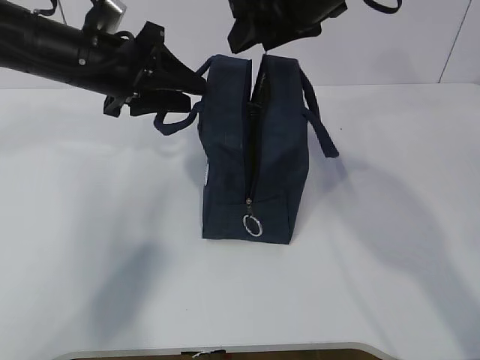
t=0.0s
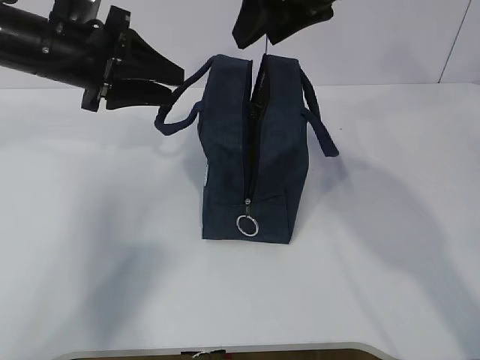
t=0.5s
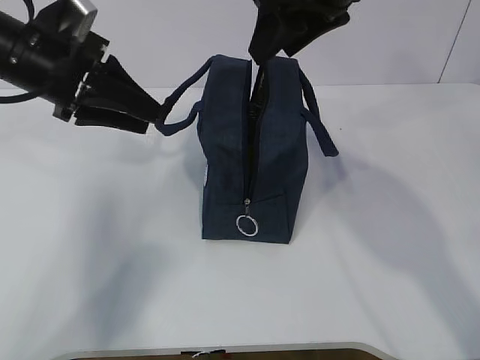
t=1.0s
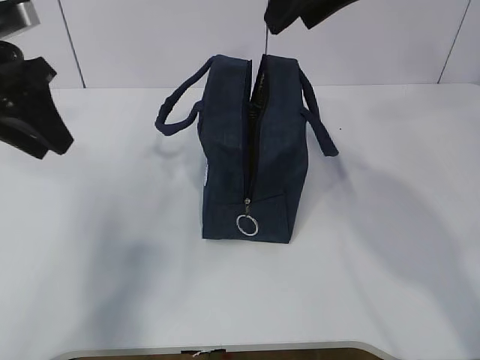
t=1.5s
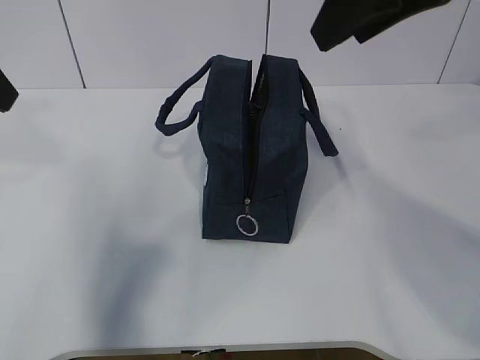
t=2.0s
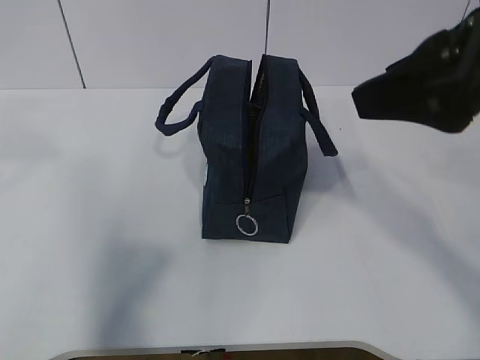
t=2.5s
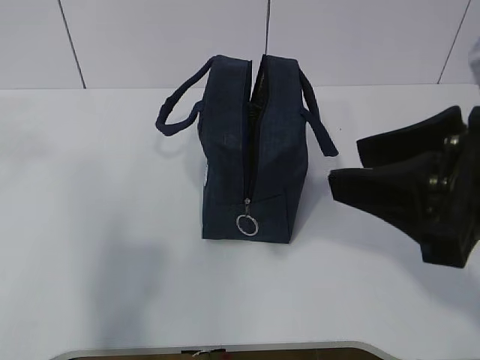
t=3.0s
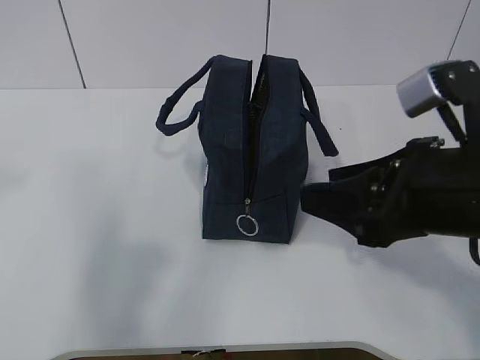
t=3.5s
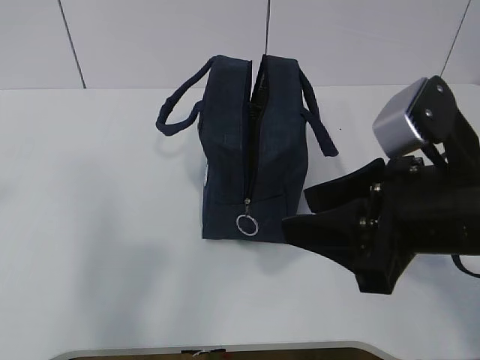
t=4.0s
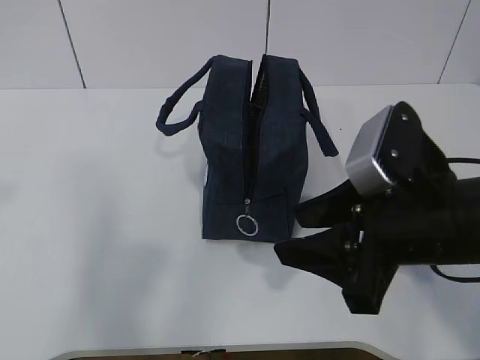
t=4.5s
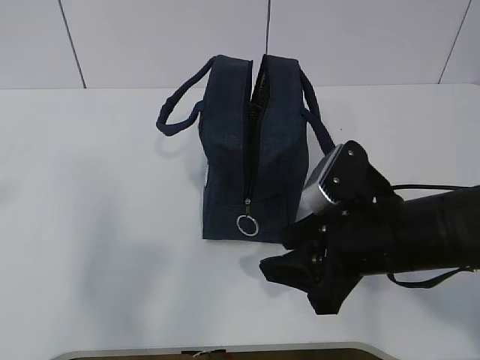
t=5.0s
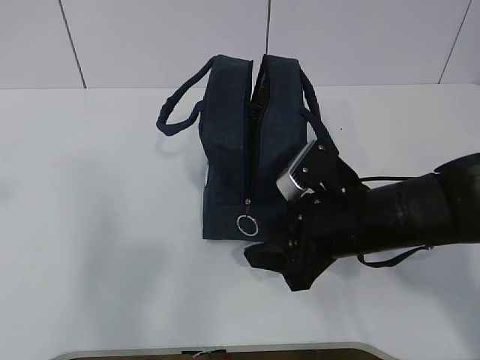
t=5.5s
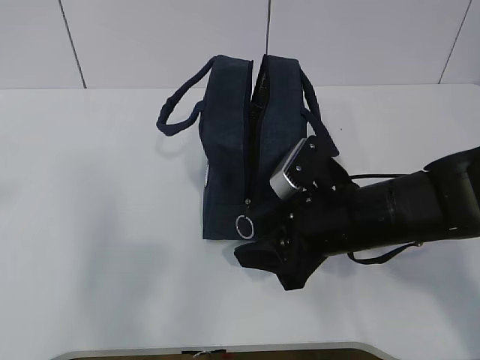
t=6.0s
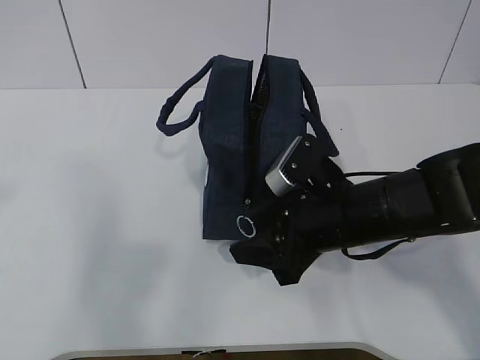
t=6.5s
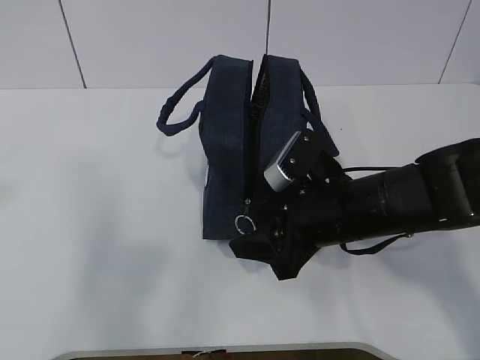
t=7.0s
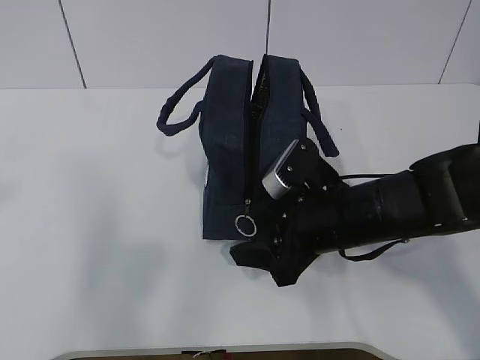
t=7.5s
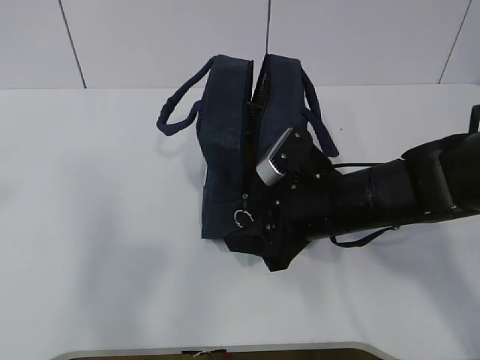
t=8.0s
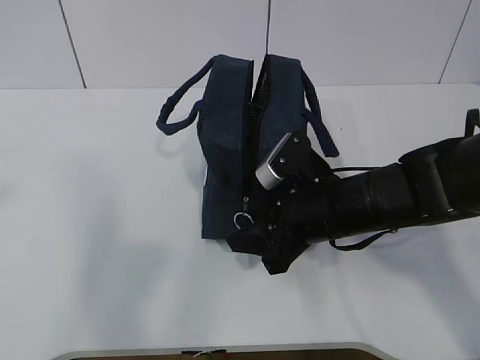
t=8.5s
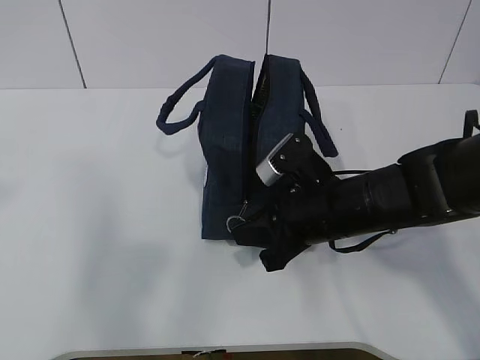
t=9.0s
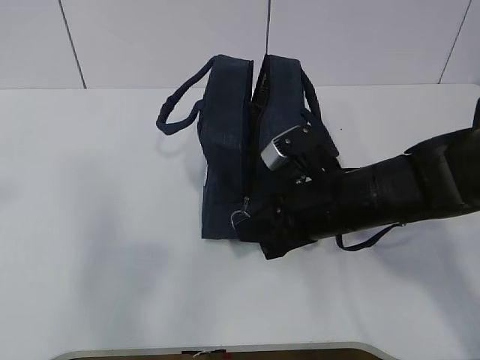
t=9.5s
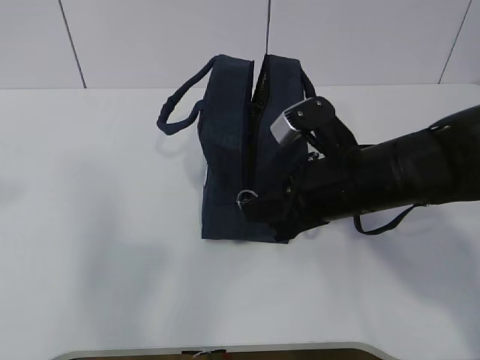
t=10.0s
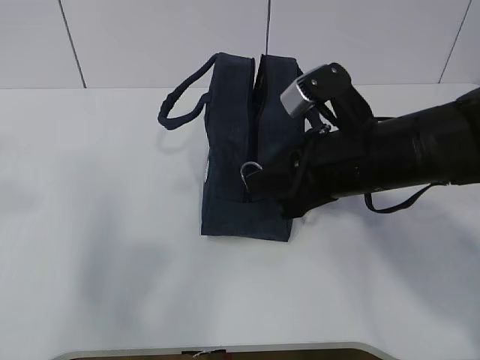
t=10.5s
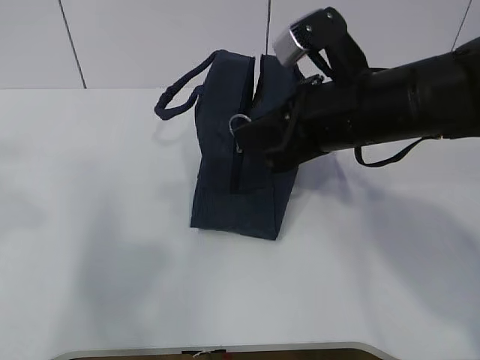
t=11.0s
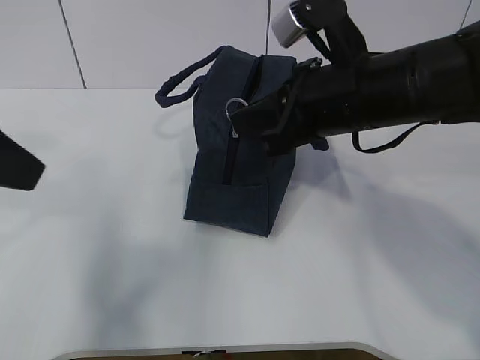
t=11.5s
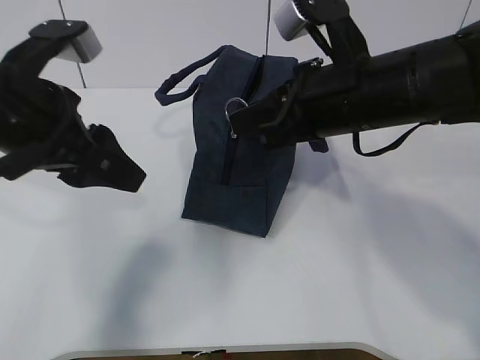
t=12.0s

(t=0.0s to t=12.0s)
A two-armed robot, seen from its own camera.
t=0.0s - t=2.0s: The right gripper moves backward, upward and to the right, approximately 15 cm; the left gripper moves upward, backward and to the left, about 20 cm.
t=2.0s - t=4.0s: The right gripper heads downward and backward, covering some 20 cm. The left gripper moves backward, roughly 20 cm.
t=4.0s - t=6.0s: The right gripper moves downward and forward, roughly 10 cm.
t=6.0s - t=8.0s: The grippers move only a little.
t=8.0s - t=10.0s: The right gripper closes its fingers.
t=10.0s - t=12.0s: The right gripper heads upward, covering roughly 10 cm; the left gripper goes approximately 25 cm forward, downward and to the right.

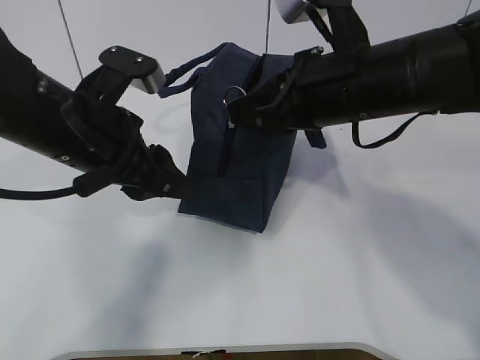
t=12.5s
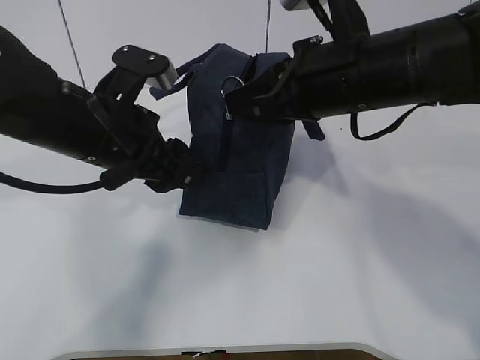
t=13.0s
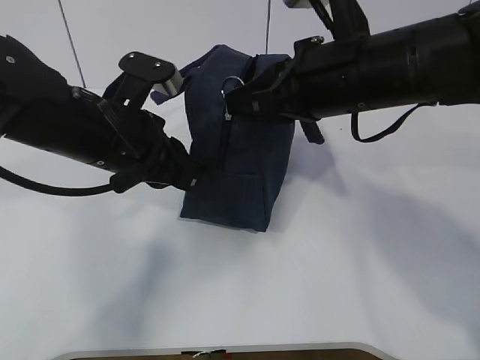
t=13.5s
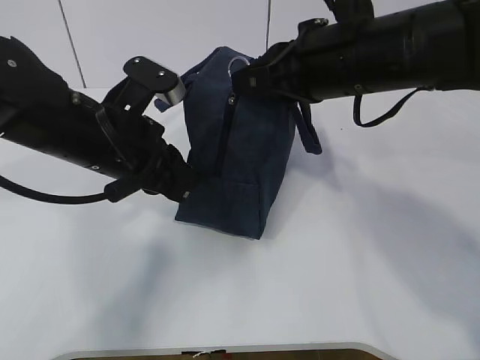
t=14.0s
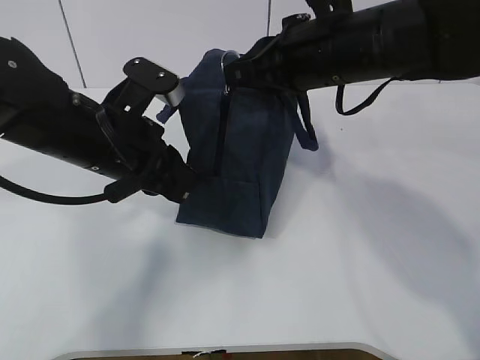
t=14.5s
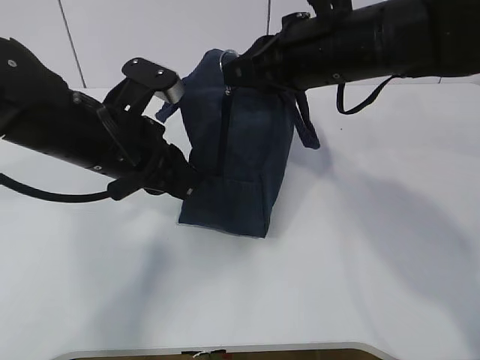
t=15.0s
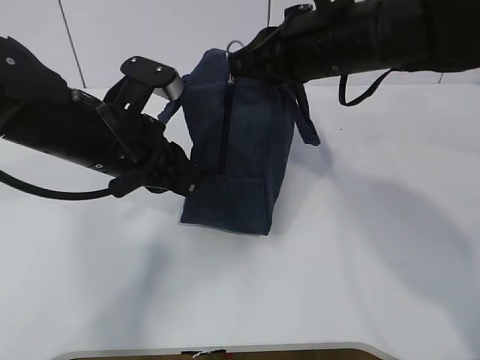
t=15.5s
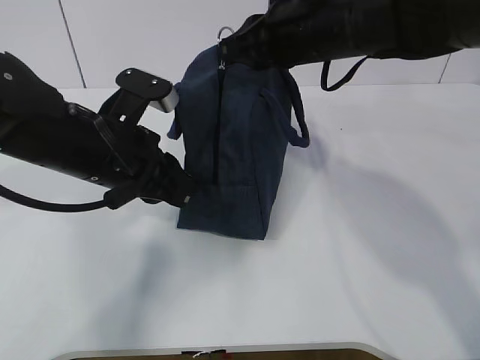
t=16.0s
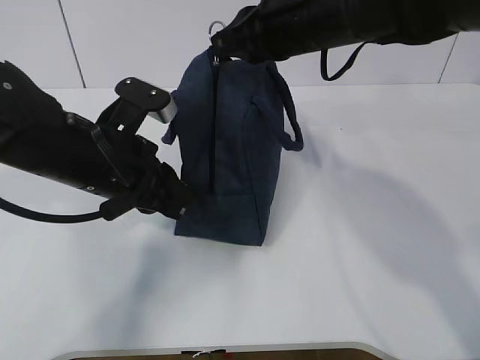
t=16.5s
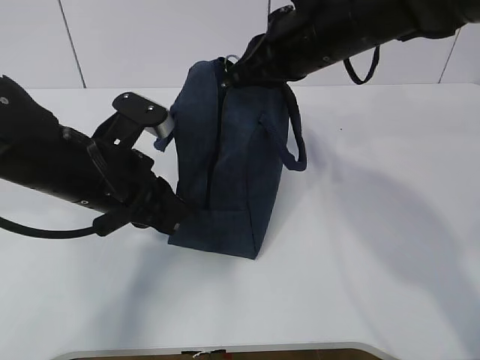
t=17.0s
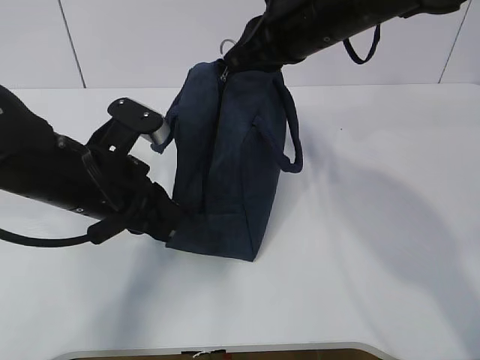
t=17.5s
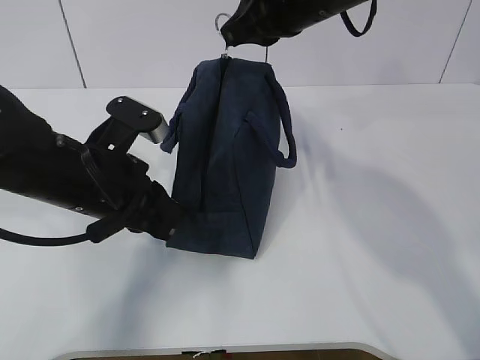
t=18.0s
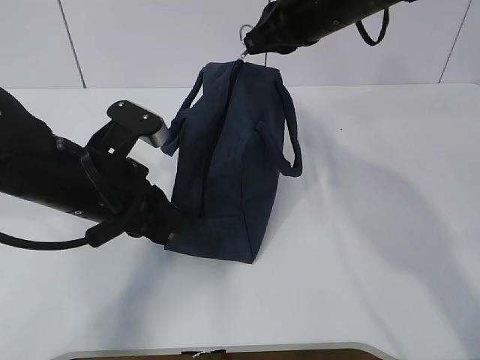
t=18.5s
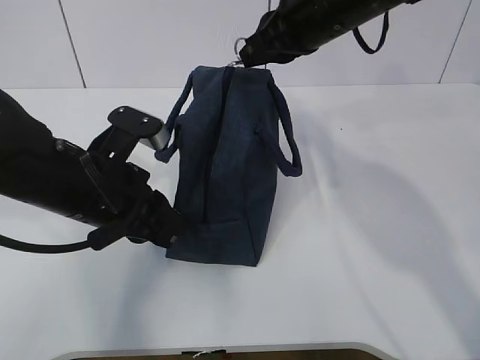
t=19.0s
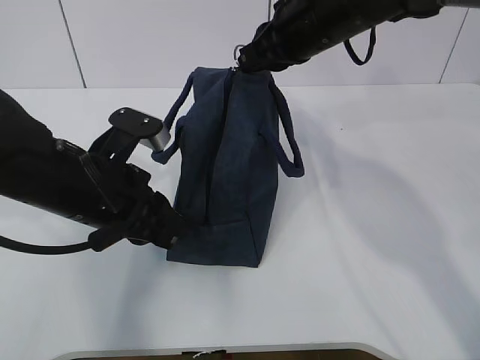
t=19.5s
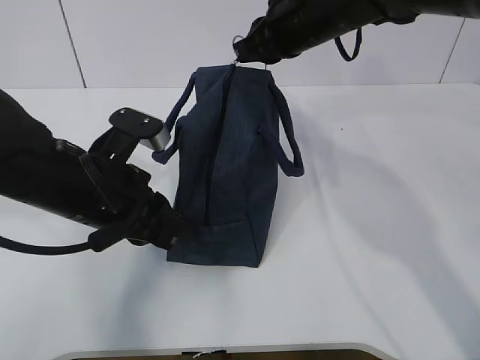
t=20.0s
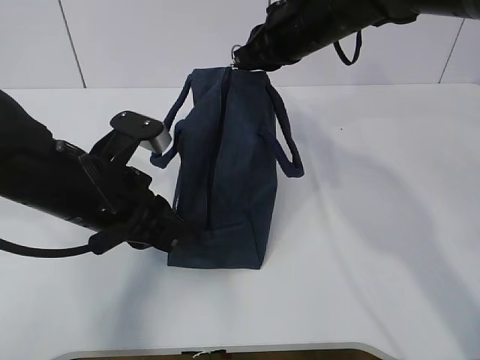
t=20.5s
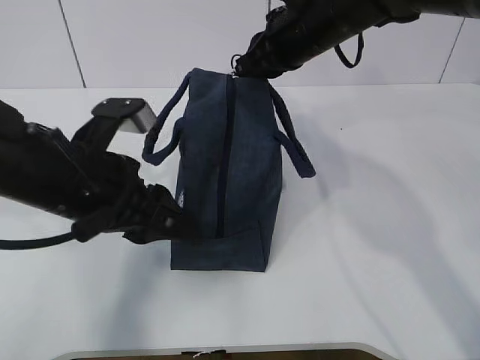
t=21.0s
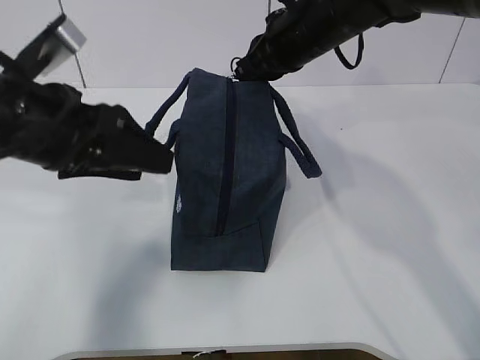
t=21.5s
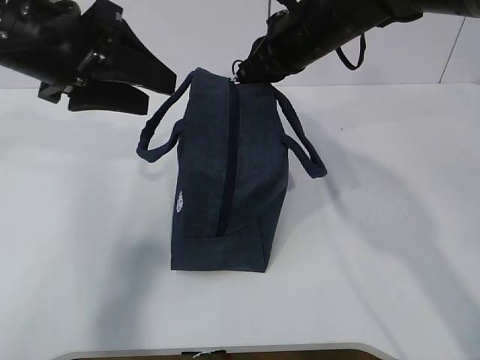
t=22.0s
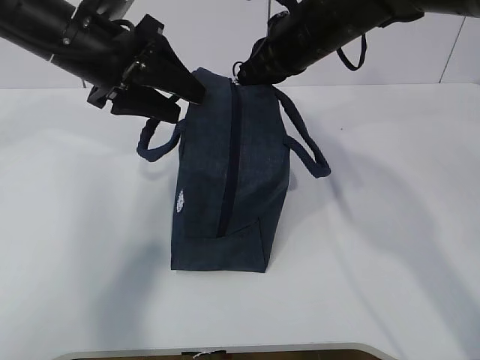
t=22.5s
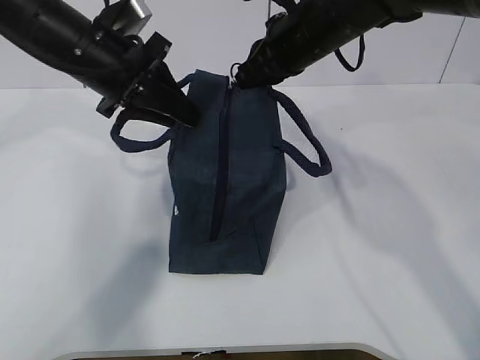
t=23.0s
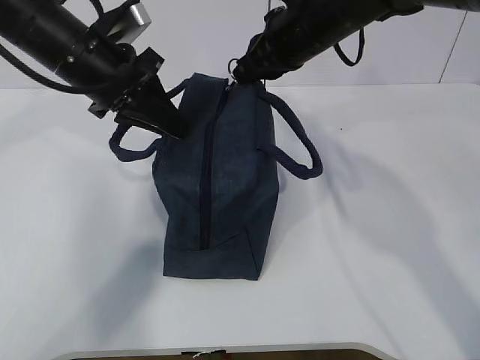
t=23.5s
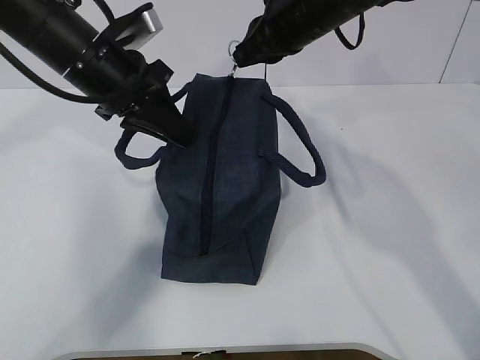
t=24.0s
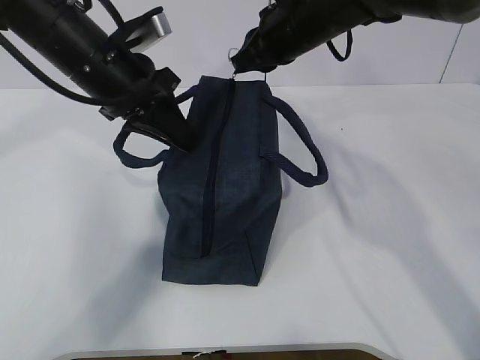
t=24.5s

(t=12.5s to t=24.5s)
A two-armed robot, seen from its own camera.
t=12.5s - t=14.5s: The left gripper closes its fingers.
t=14.5s - t=16.5s: The grippers stay close to where they were, moving slightly.
t=16.5s - t=18.5s: There are only small adjustments of the grippers.
t=18.5s - t=20.5s: There are only small adjustments of the grippers.
t=20.5s - t=22.5s: The left gripper shifts approximately 15 cm forward and upward, and opens its fingers.
t=22.5s - t=24.5s: The left gripper closes up.

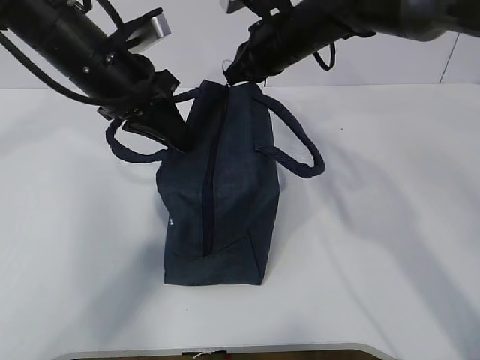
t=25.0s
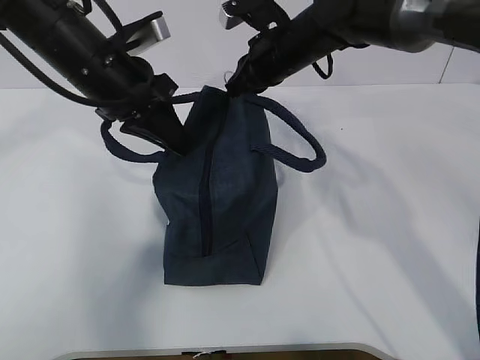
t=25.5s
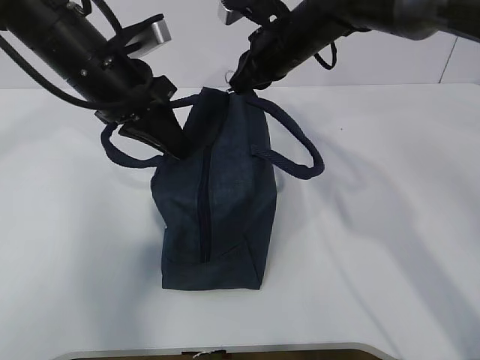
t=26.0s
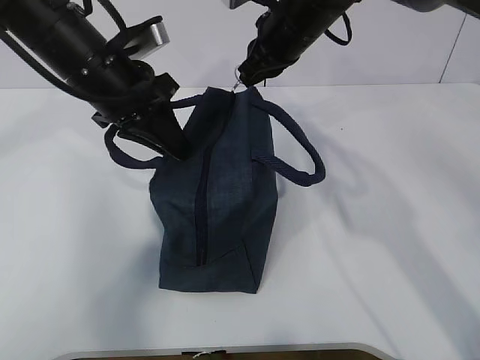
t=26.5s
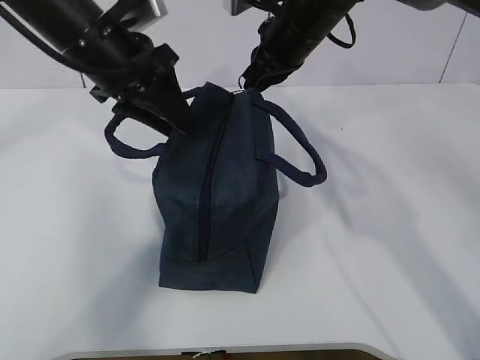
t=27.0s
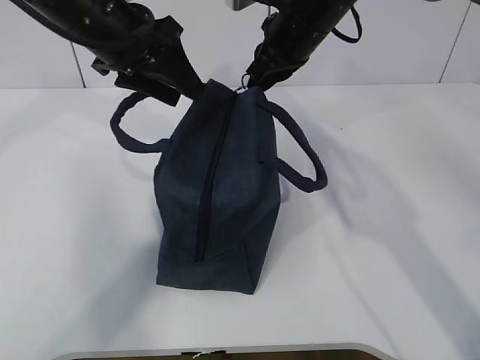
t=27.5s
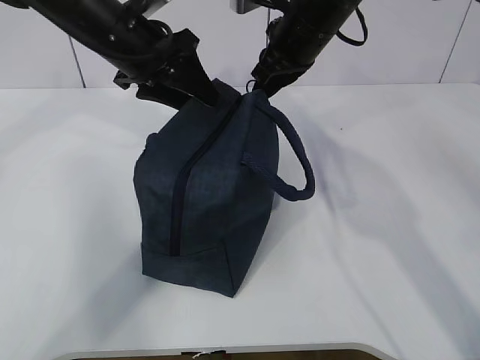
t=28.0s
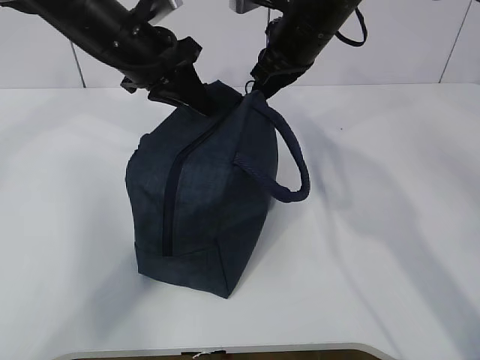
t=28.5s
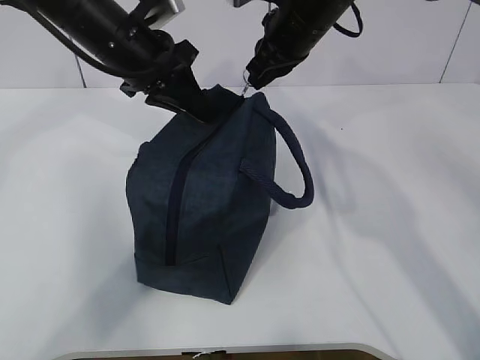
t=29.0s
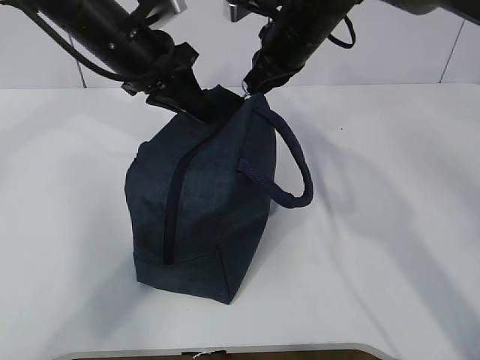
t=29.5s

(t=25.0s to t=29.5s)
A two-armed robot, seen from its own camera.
t=25.0s - t=27.0s: The left gripper opens.
t=27.0s - t=29.5s: The left gripper closes.
